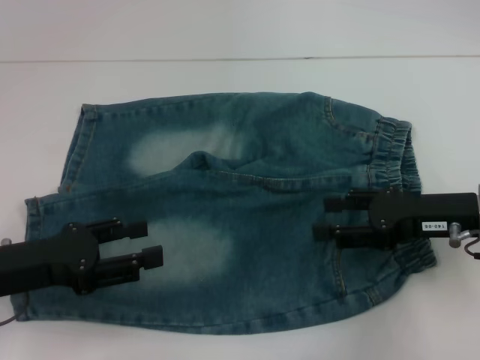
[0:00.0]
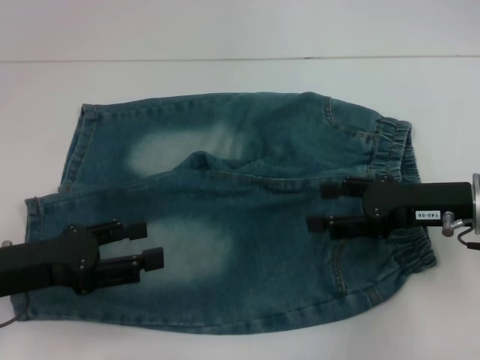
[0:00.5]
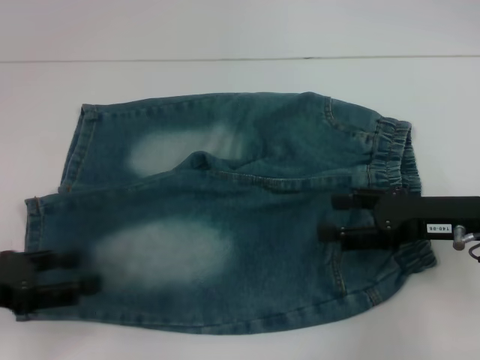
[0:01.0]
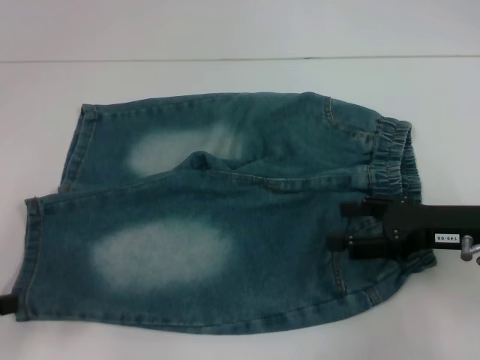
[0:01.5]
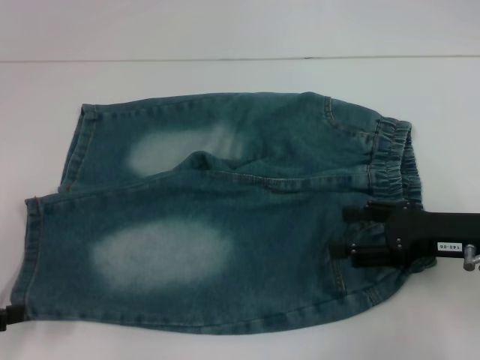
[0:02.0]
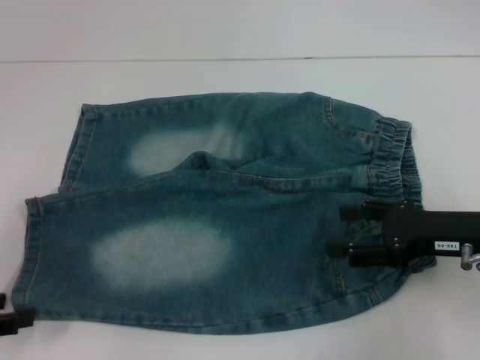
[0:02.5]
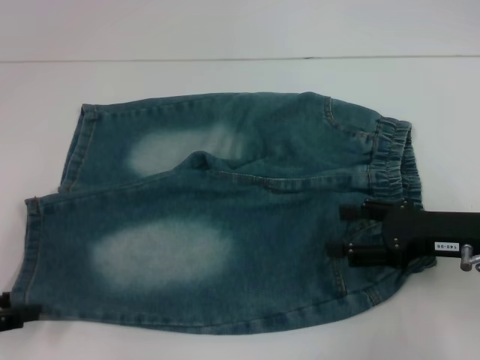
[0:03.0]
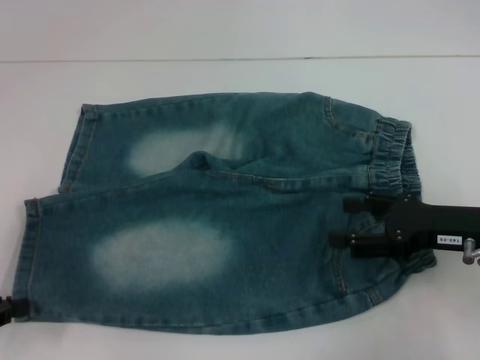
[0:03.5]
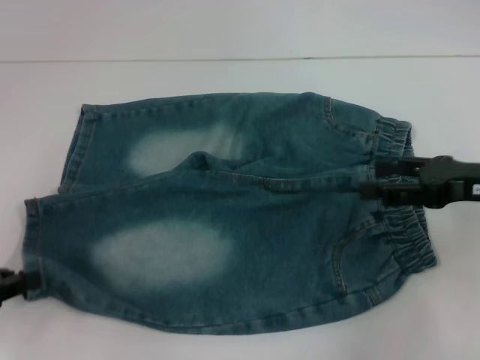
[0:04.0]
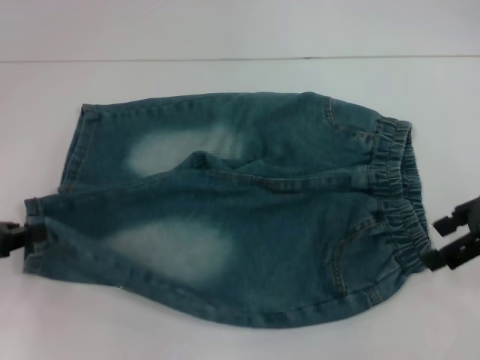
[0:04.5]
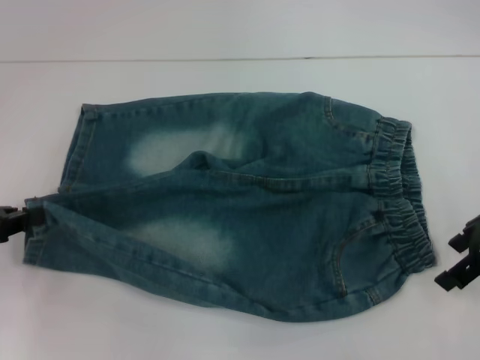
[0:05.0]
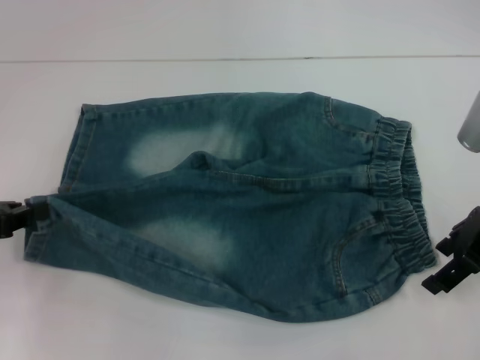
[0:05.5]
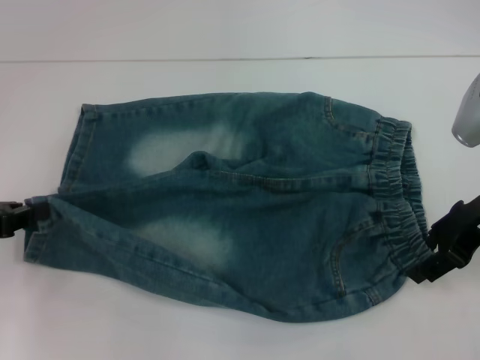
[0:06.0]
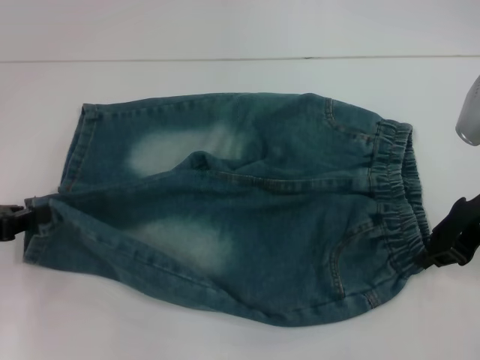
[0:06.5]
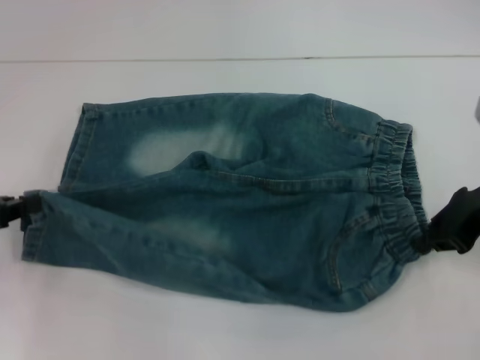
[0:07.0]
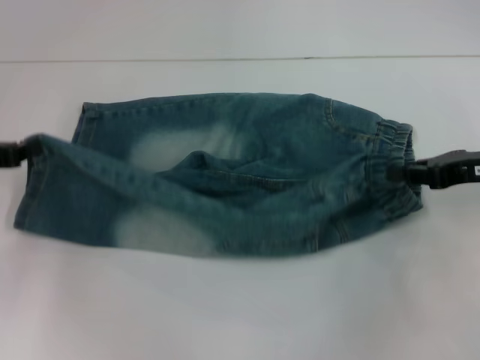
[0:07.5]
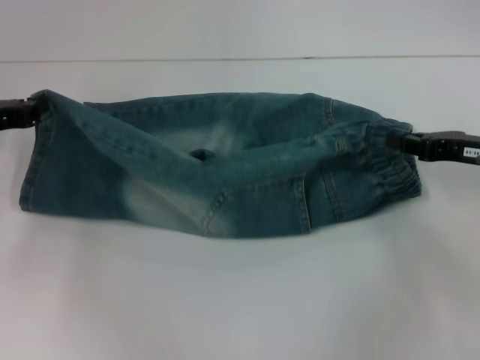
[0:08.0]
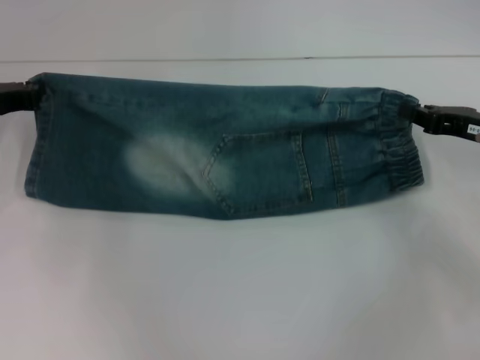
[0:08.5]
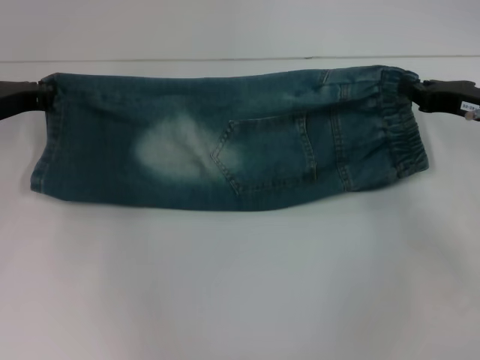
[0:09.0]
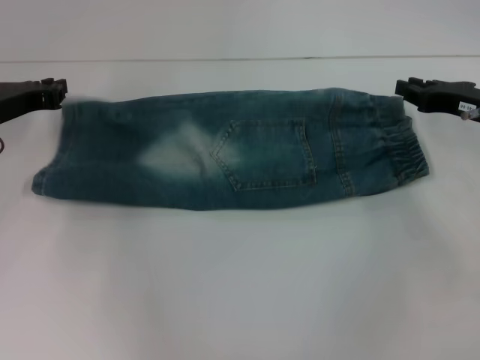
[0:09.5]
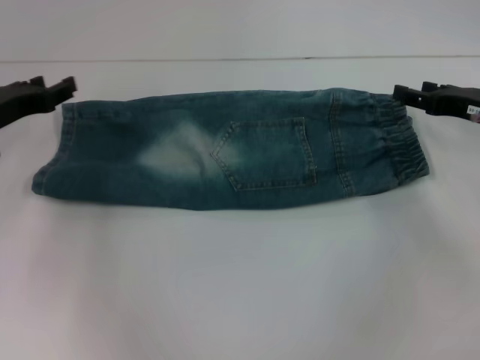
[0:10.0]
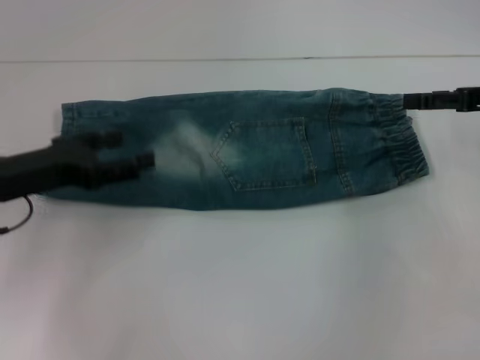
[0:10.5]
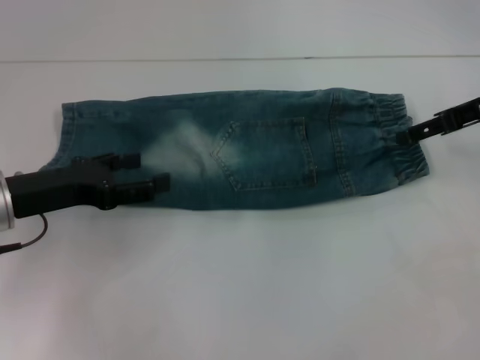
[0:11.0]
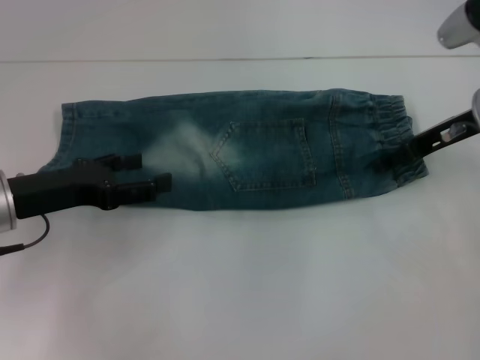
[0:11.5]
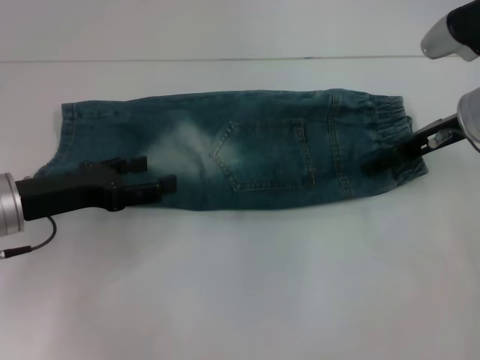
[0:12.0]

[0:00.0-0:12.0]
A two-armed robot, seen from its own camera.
Step, 0:00.0 to 0:03.5: Grab the lower left pant leg with your left hand.
Step, 0:04.0 to 0:06.5: Hold the lower right waistband with your right hand.
Step, 0:07.0 to 0:09.5: Fold upward with your right hand.
0:00.0 to 0:02.0: The left gripper goes approximately 10 cm to the left.
0:02.0 to 0:04.0: The left gripper closes its fingers, while the right gripper shifts by approximately 5 cm.
0:04.0 to 0:06.0: The right gripper moves roughly 5 cm.
0:06.0 to 0:08.0: The right gripper moves roughly 5 cm, and closes; the left gripper is displaced forward by about 10 cm.
0:08.0 to 0:10.0: The left gripper opens; the right gripper opens its fingers.
0:10.0 to 0:12.0: The right gripper is displaced to the left by about 5 cm, and opens up, while the left gripper heads backward, covering roughly 5 cm, and opens.

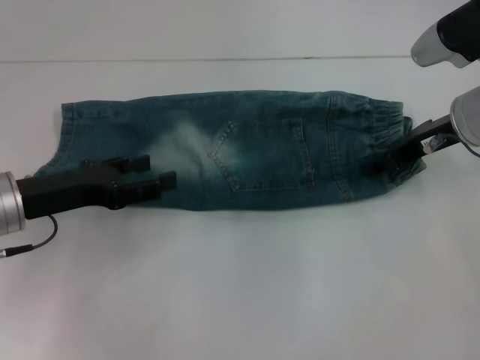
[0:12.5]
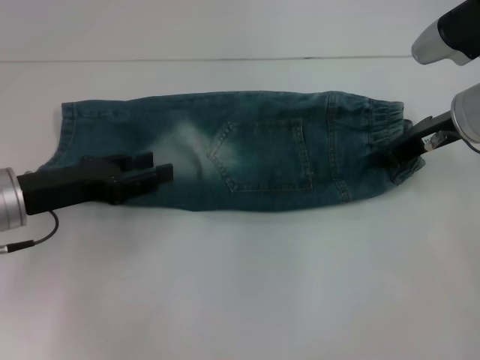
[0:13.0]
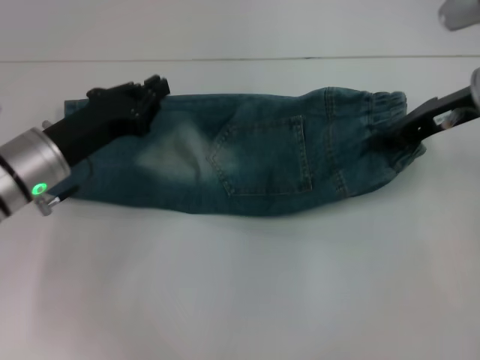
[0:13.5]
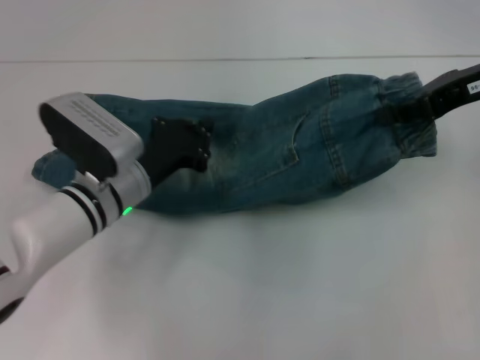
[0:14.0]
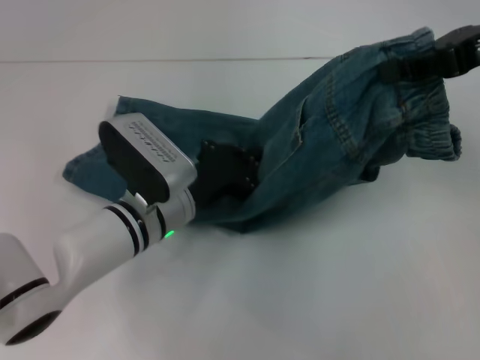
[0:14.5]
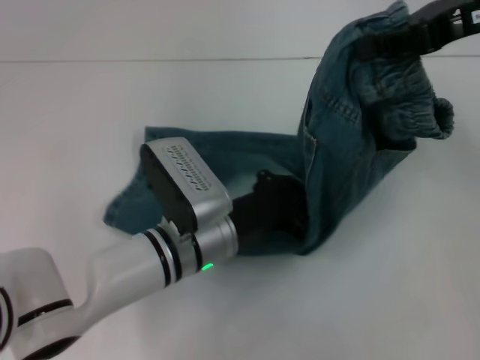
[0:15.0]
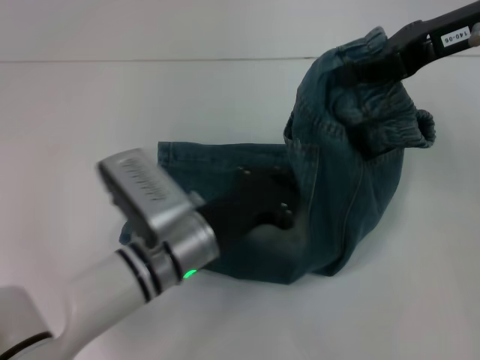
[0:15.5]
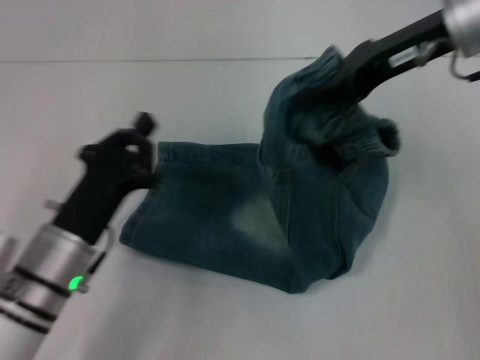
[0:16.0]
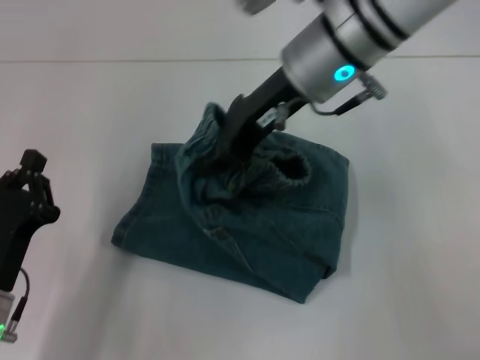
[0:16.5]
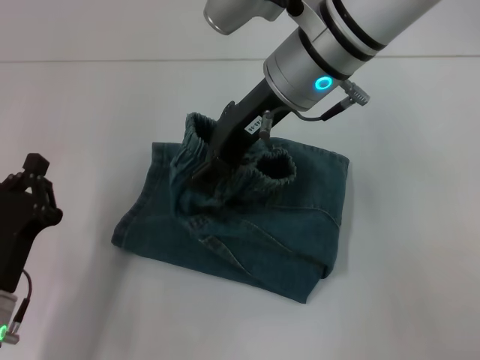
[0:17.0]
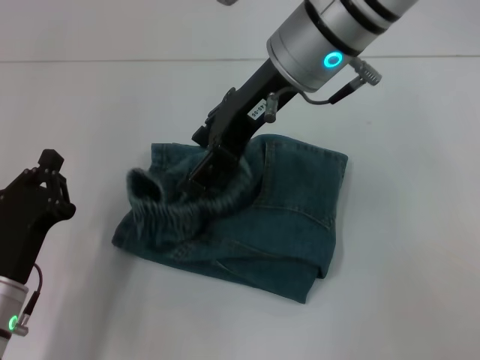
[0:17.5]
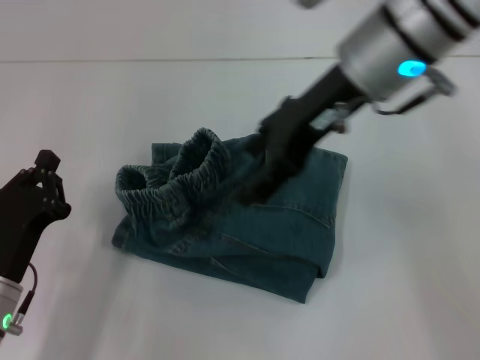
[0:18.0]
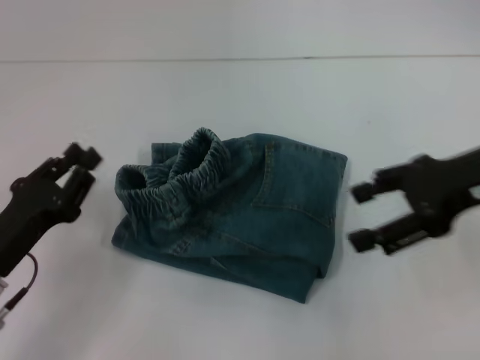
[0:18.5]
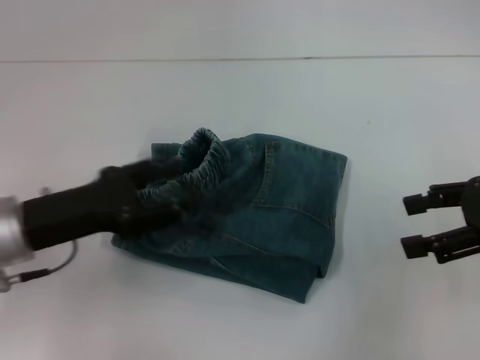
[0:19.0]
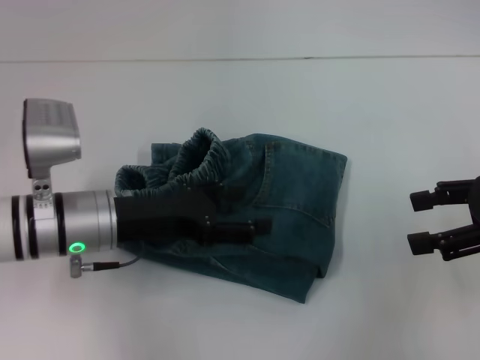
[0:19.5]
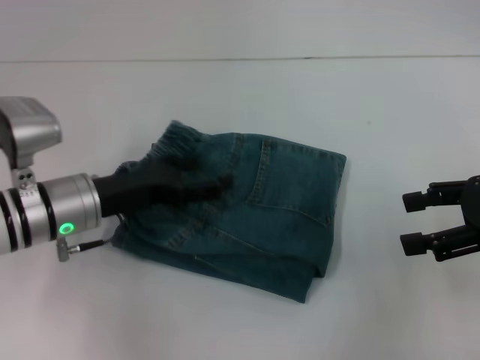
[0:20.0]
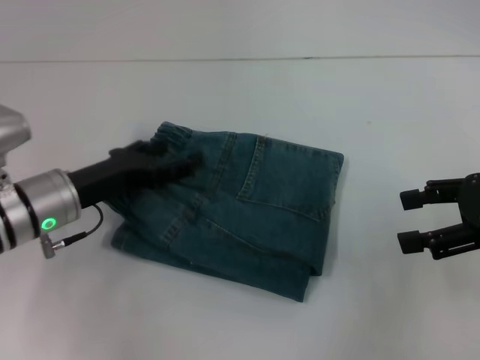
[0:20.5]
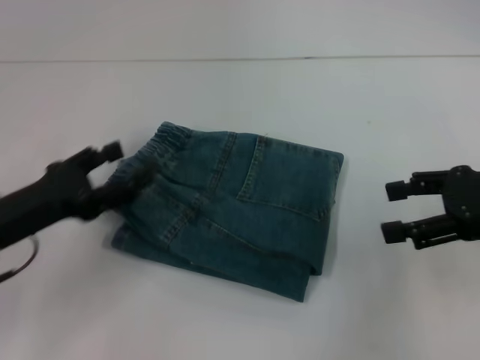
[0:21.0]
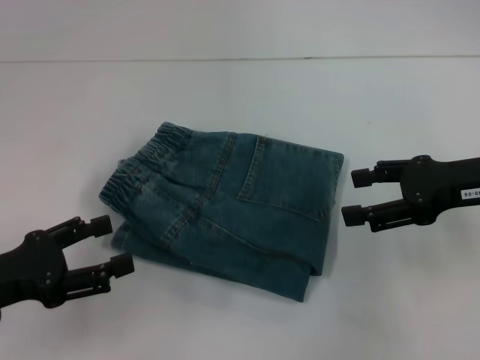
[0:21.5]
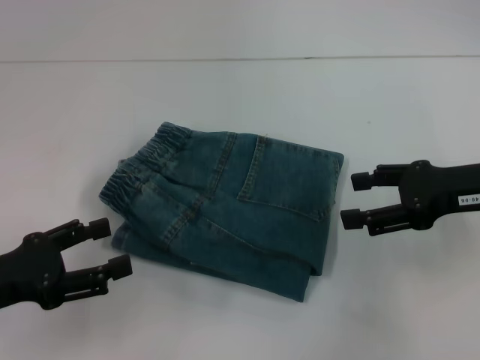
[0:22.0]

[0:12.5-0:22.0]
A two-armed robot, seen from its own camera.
Step, 0:13.5 to 0:15.0: Press the middle of the pants with your left hand.
Step, 0:15.5 to 0:17.5: Fold to the left with your right hand.
Step, 0:18.0 to 0:20.5: Adjust the pants with your left hand.
0:12.5 to 0:14.5: The left gripper goes roughly 15 cm to the right and downward, and closes. Meanwhile the right gripper moves upward, approximately 10 cm, and closes its fingers.
0:14.5 to 0:16.5: The right gripper heads to the left, covering roughly 20 cm, while the left gripper goes about 20 cm to the left and backward.
0:16.5 to 0:18.0: The right gripper moves about 5 cm, and opens its fingers.
0:18.0 to 0:20.0: The left gripper is displaced forward and upward by approximately 10 cm, and opens up. Meanwhile the right gripper goes roughly 25 cm to the right, downward and backward.
0:20.0 to 0:22.0: The left gripper is displaced backward and to the left by approximately 15 cm, while the right gripper ends up roughly 5 cm from where it was.
